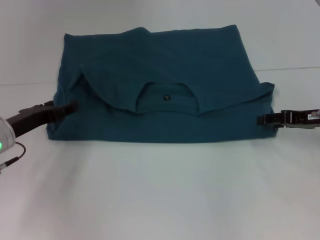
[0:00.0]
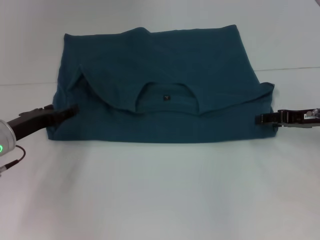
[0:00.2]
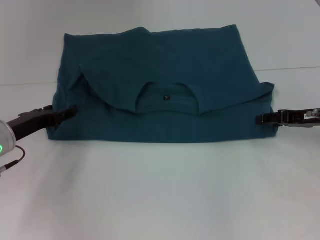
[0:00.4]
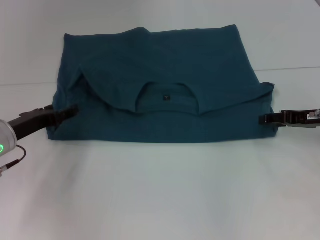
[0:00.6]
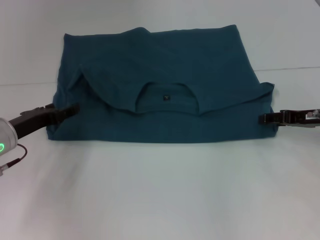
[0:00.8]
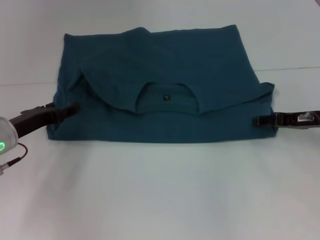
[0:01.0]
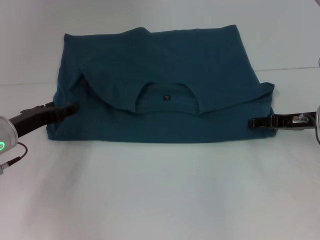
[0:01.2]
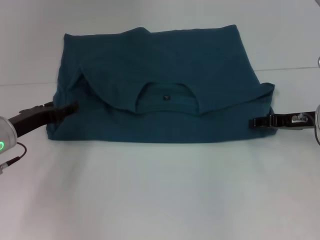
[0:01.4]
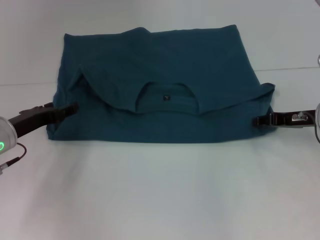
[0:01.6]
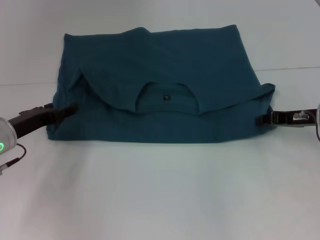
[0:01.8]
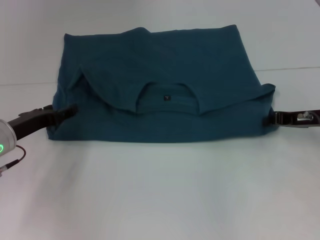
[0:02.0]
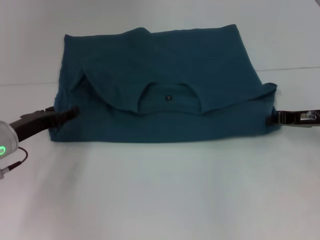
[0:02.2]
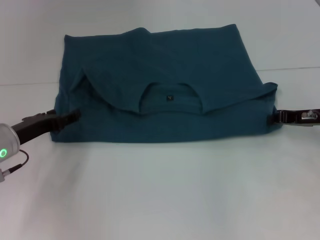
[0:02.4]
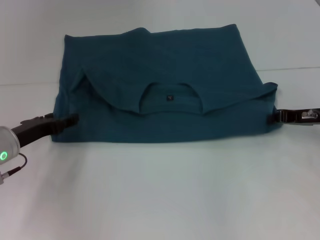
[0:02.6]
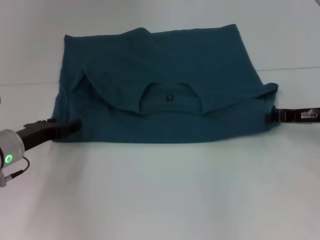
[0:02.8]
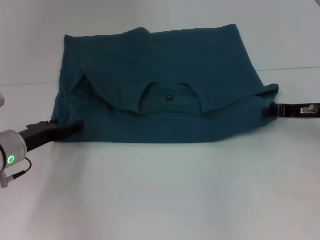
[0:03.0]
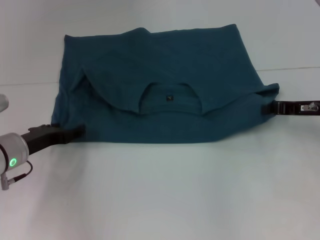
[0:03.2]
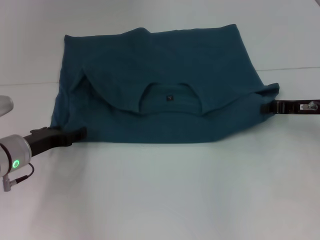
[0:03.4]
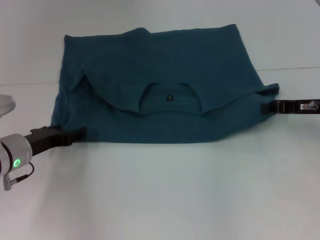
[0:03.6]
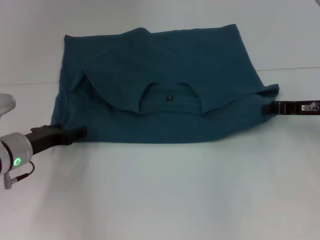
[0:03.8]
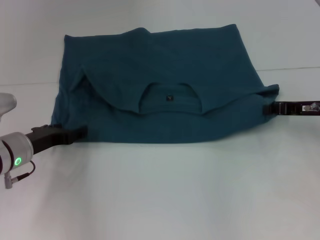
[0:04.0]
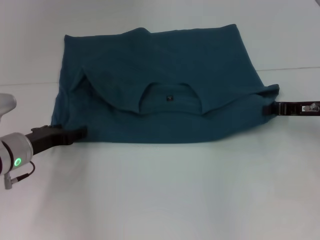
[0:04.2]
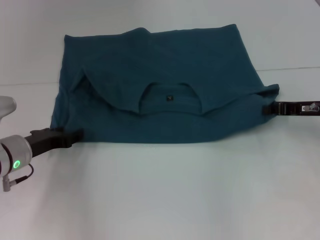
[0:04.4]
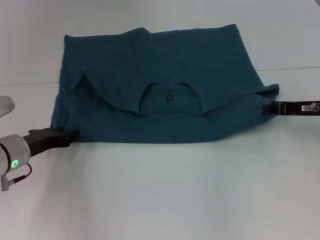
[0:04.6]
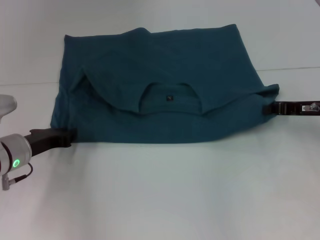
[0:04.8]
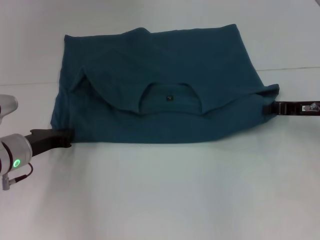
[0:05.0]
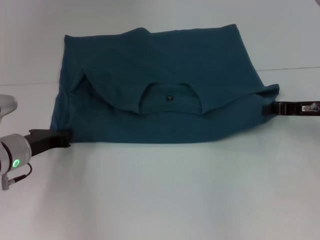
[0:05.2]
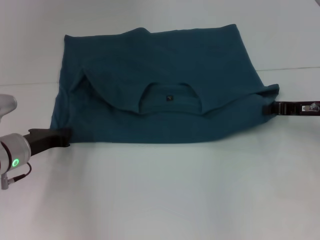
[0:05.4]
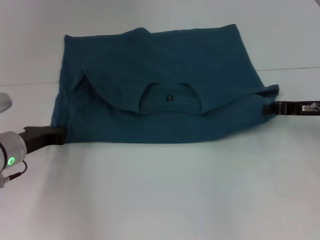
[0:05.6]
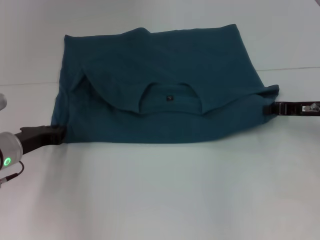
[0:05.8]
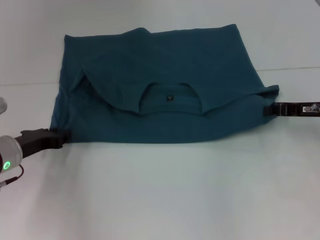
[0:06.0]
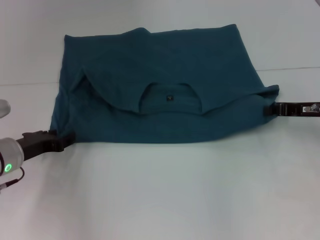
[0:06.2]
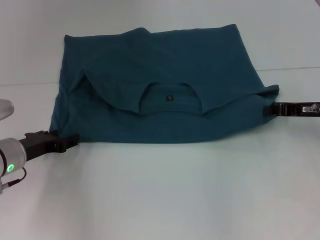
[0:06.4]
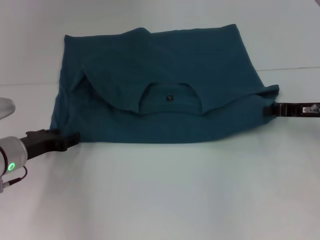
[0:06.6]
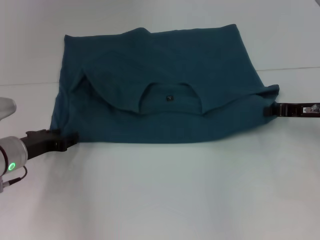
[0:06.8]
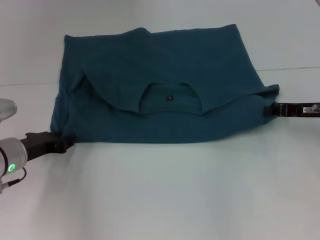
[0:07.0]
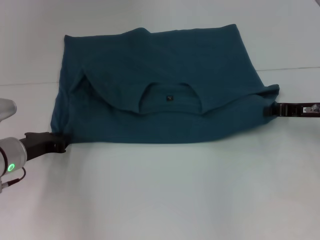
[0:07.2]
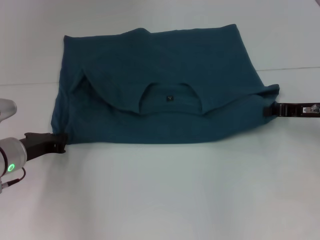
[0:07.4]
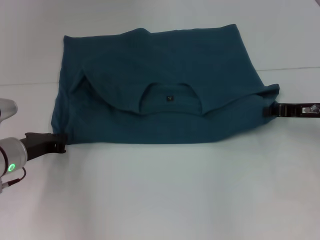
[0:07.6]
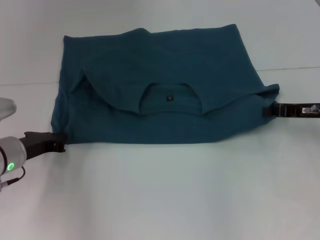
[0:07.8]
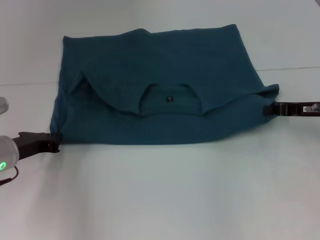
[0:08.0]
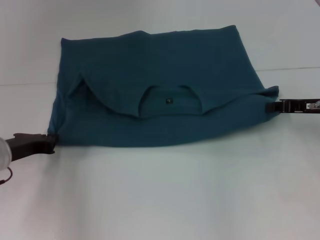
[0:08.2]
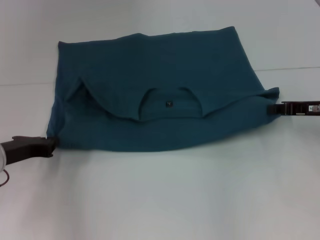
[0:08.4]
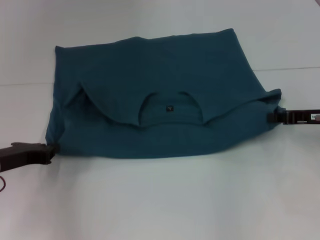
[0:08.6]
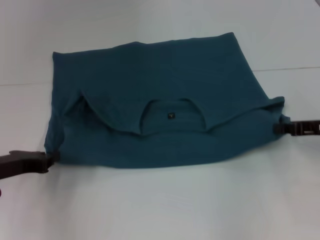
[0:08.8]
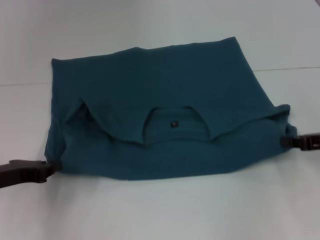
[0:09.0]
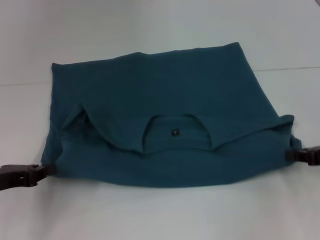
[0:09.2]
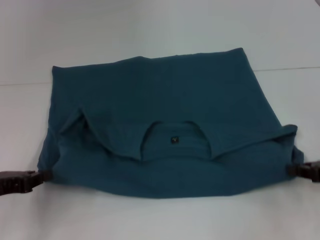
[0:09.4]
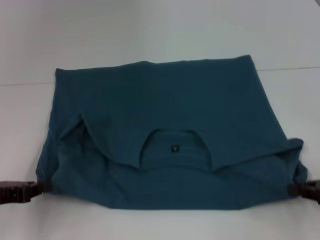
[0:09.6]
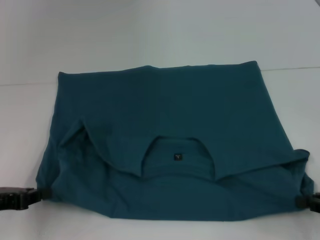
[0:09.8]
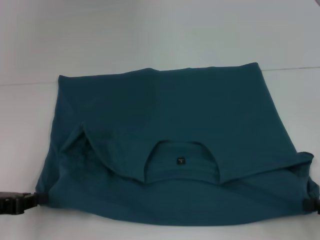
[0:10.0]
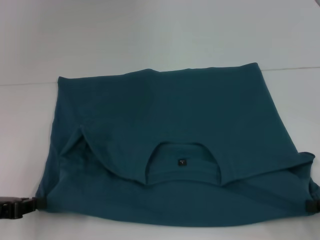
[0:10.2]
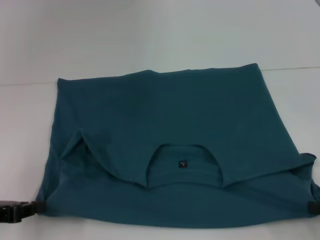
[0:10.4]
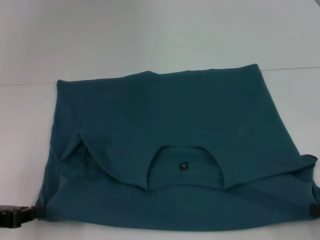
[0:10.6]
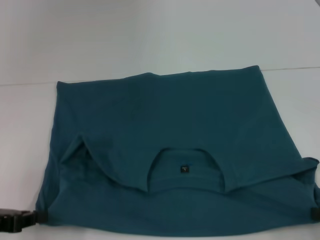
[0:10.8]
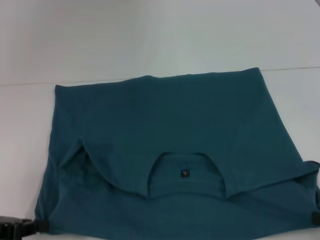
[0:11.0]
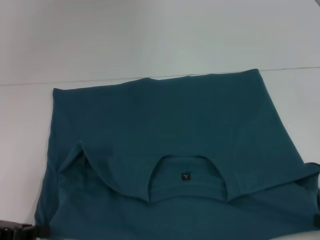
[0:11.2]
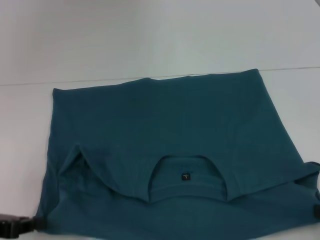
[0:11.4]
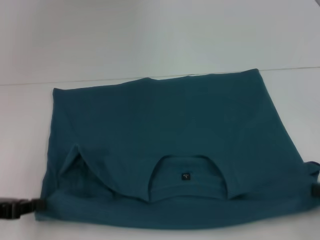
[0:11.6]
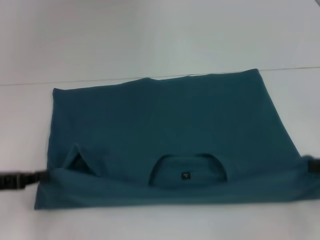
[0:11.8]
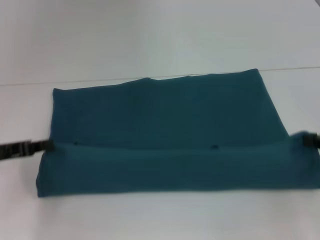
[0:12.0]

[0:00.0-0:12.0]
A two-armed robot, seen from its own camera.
Step, 0:00.0 to 0:11.0: Pull the clothes with your left hand.
Step, 0:00.0 to 0:11.0: Pull the clothes with your right hand.
0:00.0 to 0:01.6: The grippers stay close to where they were, moving slightly.
0:01.6 to 0:03.0: The right gripper closes its fingers.
0:03.0 to 0:04.4: The grippers stay close to where they were, moving slightly.
0:04.4 to 0:06.0: The left gripper closes up.
0:06.0 to 0:07.6: The left gripper opens and closes again.
0:07.6 to 0:09.0: The two grippers go some 5 cm backward.
0:09.0 to 0:10.4: The left gripper ends up roughly 5 cm from where it was. The right gripper goes roughly 10 cm backward.
0:10.4 to 0:12.0: The grippers both shift forward by approximately 5 cm.

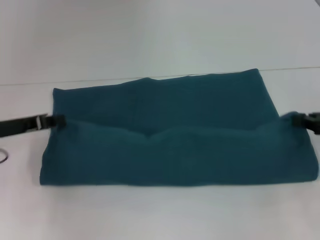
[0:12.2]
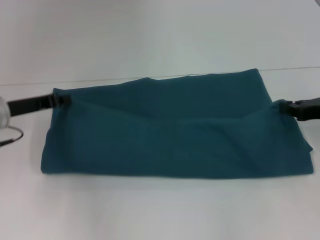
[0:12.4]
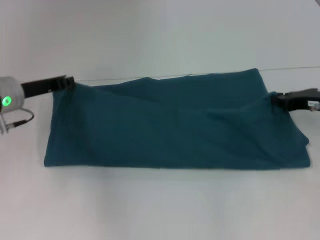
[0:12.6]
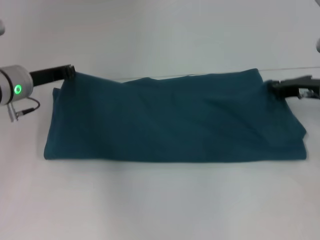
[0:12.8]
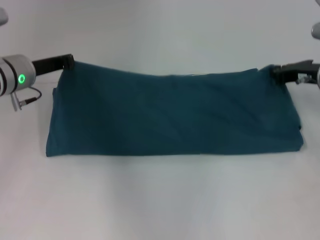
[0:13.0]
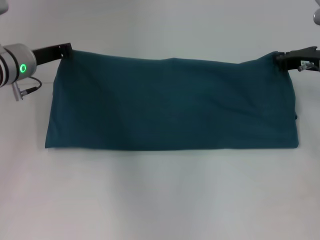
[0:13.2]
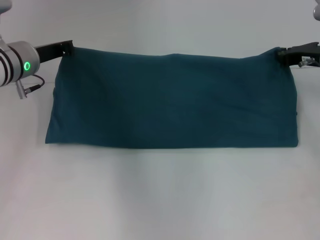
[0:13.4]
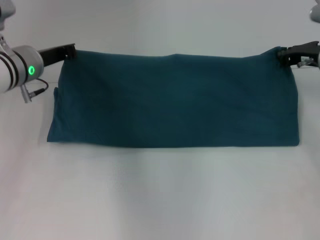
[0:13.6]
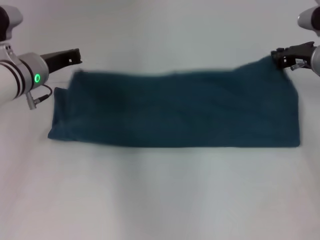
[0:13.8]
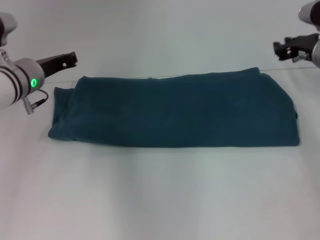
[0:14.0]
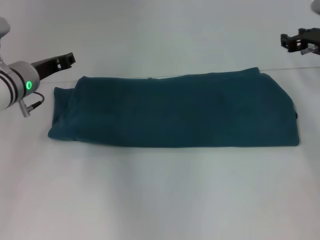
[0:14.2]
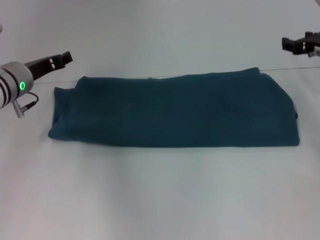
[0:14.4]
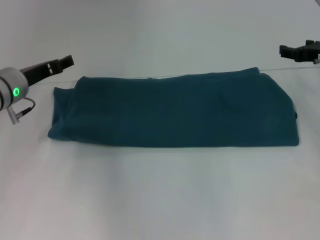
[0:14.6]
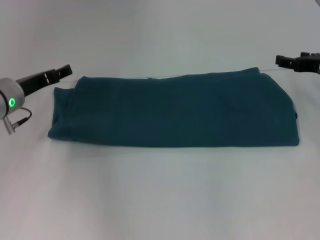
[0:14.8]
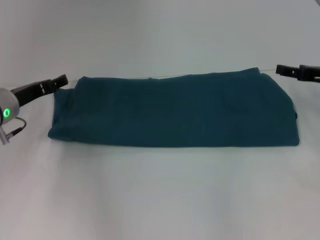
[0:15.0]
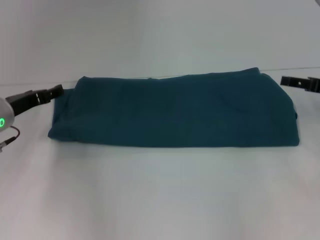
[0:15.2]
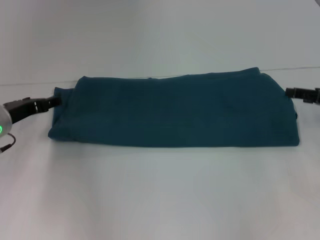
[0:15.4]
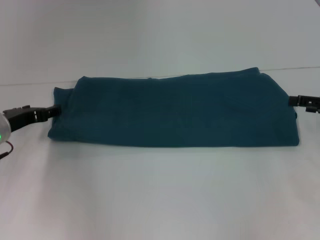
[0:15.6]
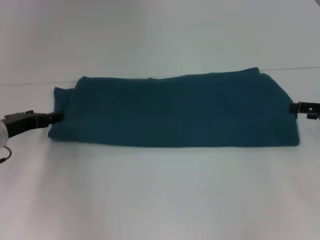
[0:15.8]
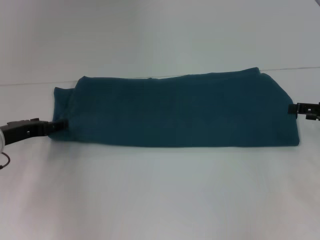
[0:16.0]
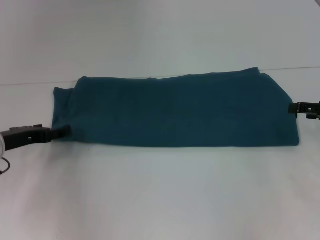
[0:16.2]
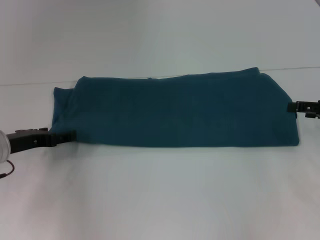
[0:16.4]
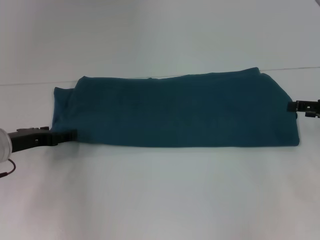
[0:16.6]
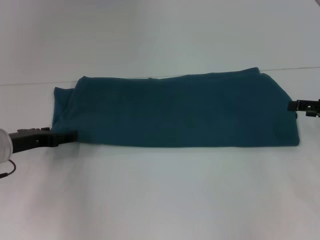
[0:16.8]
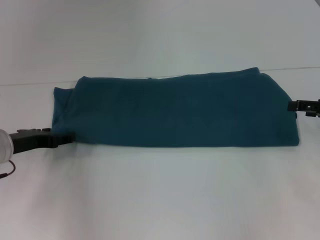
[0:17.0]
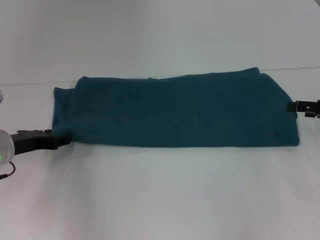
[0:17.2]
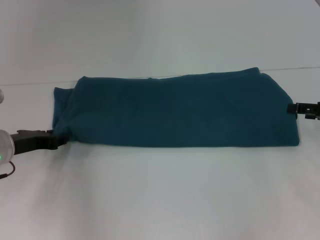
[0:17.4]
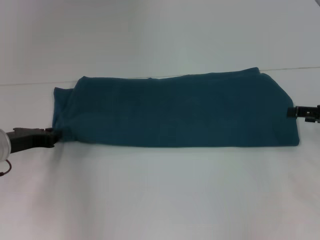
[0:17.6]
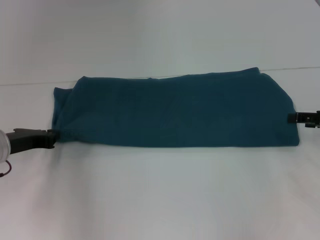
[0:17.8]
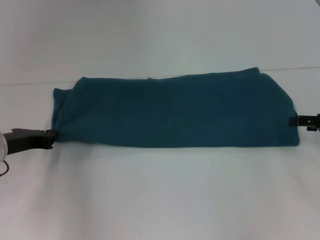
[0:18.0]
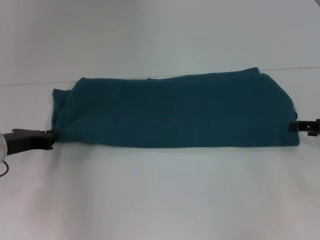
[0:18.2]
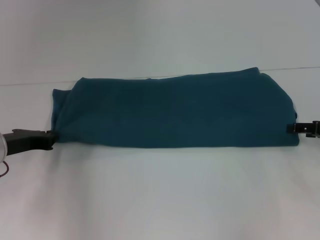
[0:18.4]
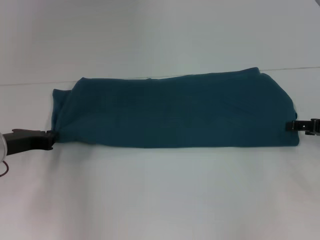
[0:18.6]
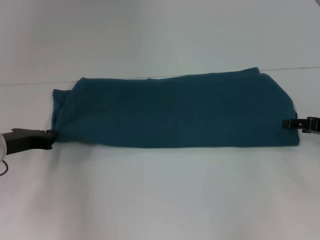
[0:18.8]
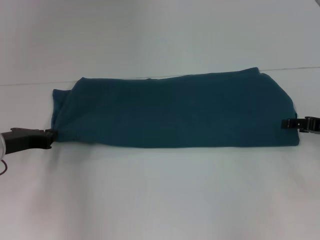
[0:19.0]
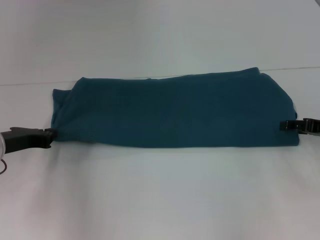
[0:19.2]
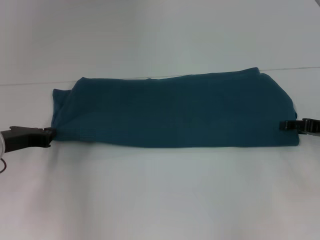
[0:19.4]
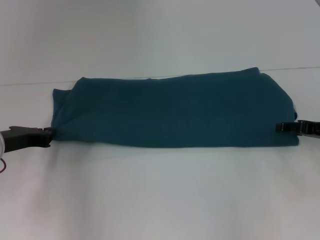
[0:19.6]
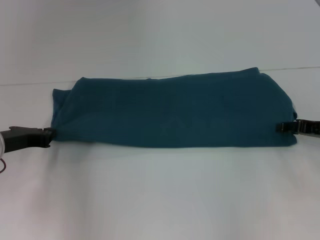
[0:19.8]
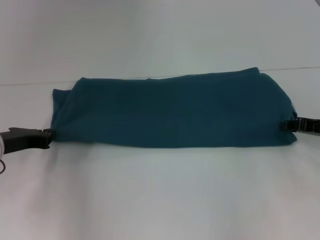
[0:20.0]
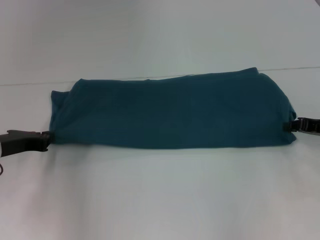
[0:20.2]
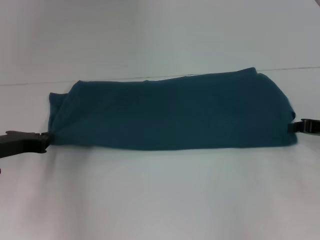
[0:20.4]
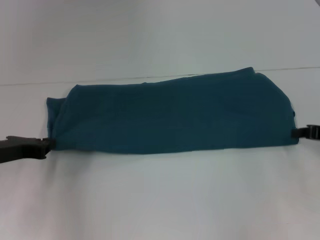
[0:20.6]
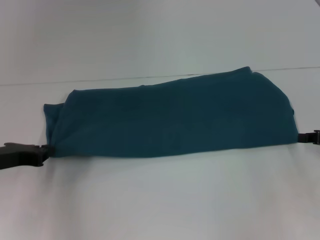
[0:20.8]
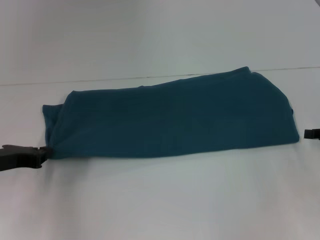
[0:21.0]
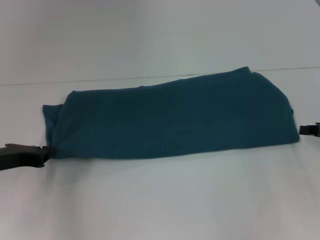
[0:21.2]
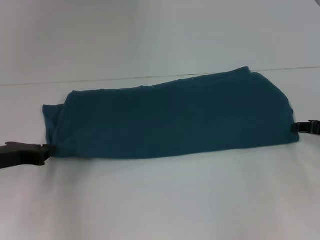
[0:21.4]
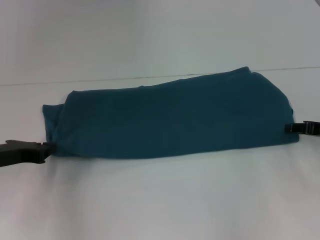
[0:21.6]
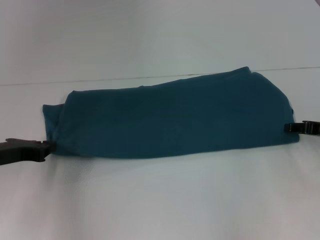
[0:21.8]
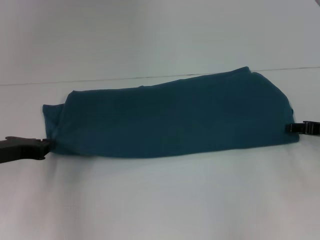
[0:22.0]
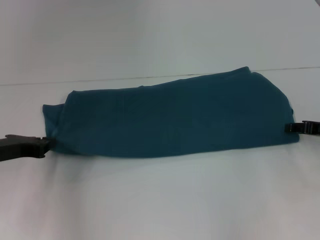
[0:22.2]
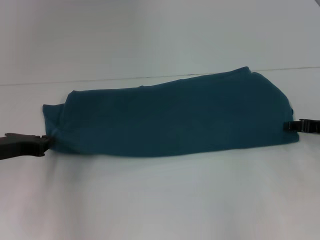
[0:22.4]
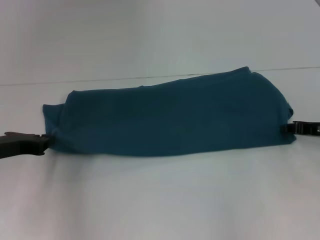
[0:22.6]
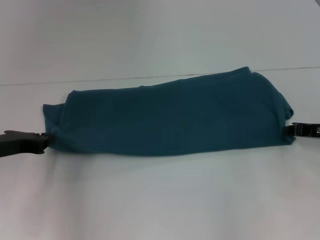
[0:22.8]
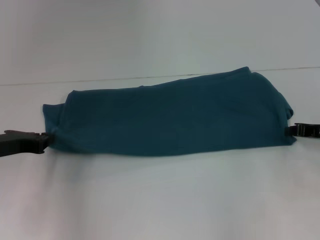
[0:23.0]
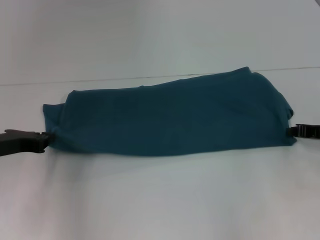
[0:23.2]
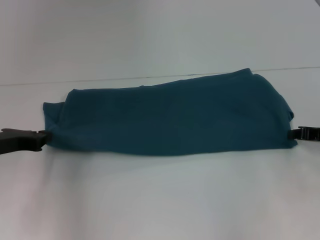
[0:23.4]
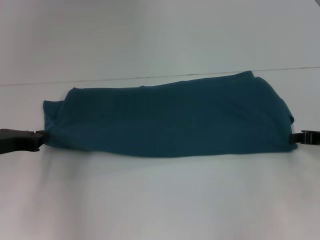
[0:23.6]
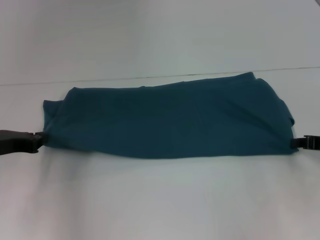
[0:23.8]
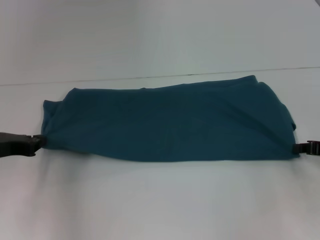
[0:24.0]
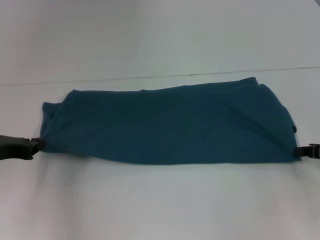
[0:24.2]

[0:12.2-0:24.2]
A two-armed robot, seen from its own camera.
Step, 0:12.2 to 0:14.6: Fold the clothes to the right.
0:12.2 to 0:13.8: The right gripper travels forward and to the left by some 15 cm, while the left gripper travels forward and to the right by about 15 cm.
0:13.8 to 0:15.2: The right gripper shifts about 10 cm backward and to the right, and opens; the left gripper travels to the left by approximately 5 cm, and opens up.
0:15.2 to 0:16.6: The grippers make only small movements.
0:16.6 to 0:18.2: The left gripper closes up.
0:18.2 to 0:19.8: The grippers stay close to where they were, moving slightly.
0:19.8 to 0:21.2: The right gripper closes up.
0:21.2 to 0:22.6: There are only small adjustments of the grippers.
0:22.6 to 0:24.2: The right gripper ends up about 5 cm from where it was.
